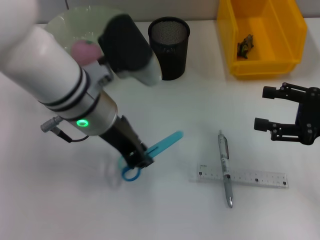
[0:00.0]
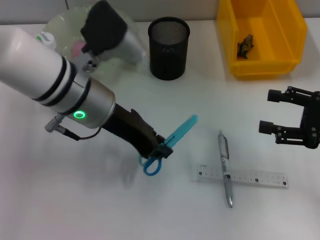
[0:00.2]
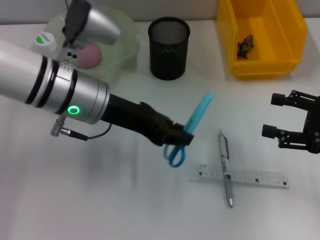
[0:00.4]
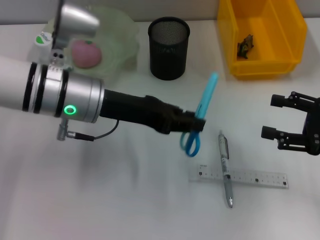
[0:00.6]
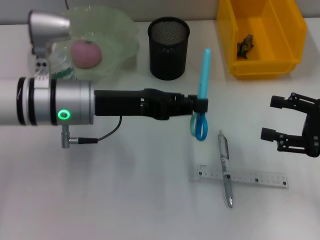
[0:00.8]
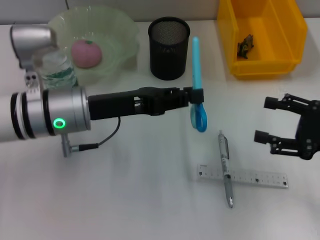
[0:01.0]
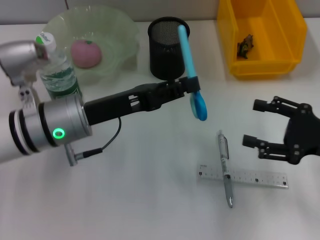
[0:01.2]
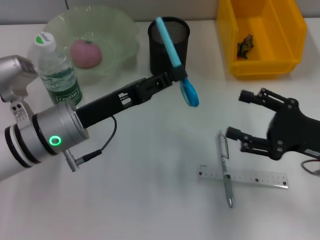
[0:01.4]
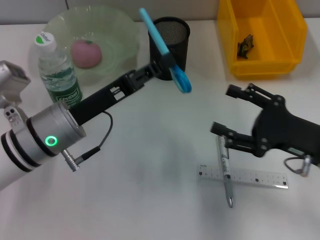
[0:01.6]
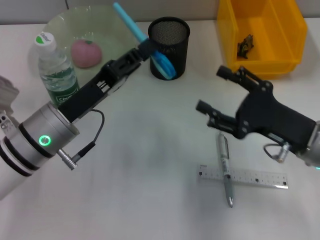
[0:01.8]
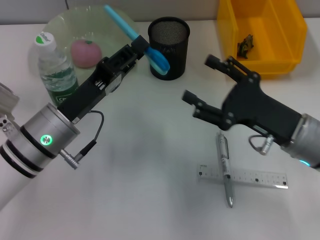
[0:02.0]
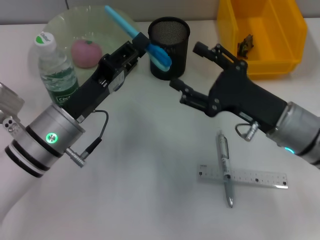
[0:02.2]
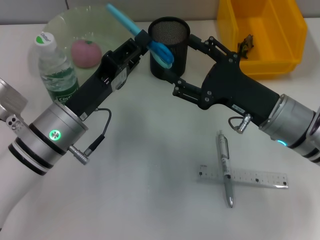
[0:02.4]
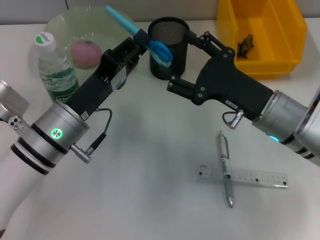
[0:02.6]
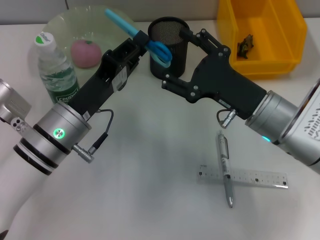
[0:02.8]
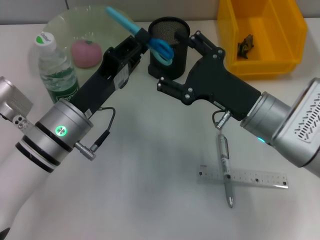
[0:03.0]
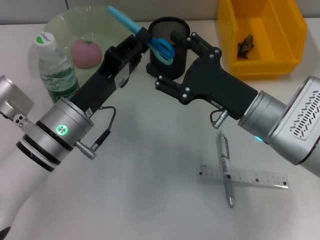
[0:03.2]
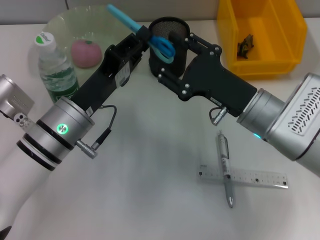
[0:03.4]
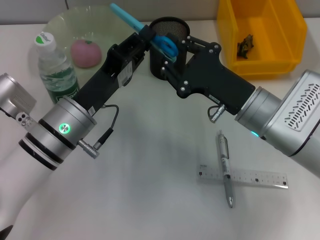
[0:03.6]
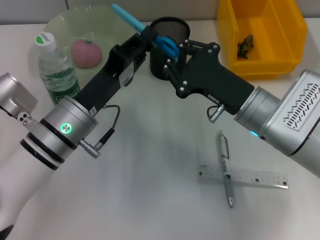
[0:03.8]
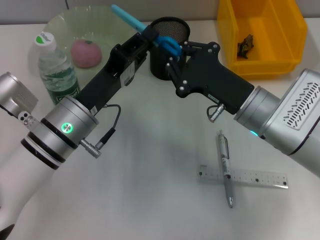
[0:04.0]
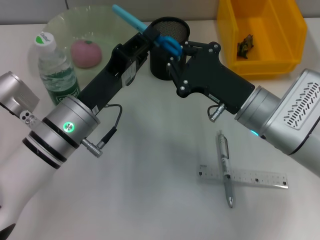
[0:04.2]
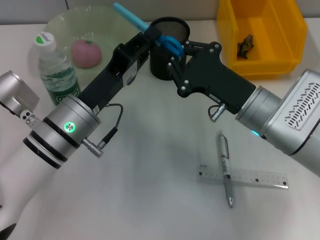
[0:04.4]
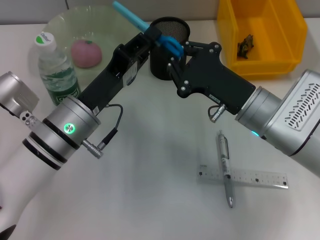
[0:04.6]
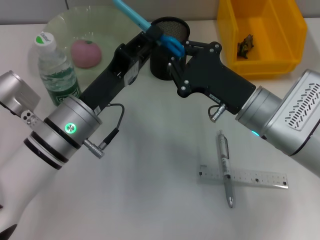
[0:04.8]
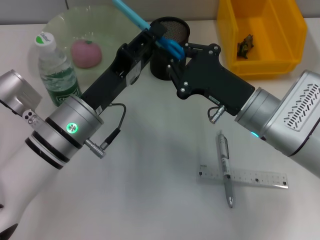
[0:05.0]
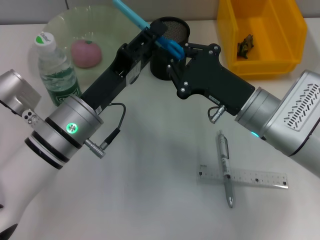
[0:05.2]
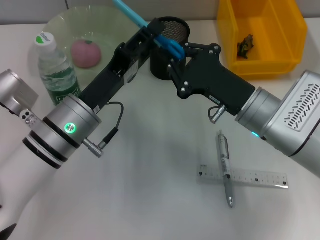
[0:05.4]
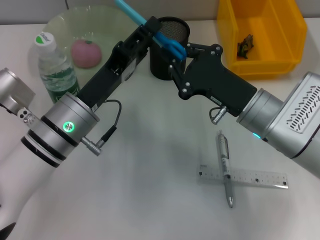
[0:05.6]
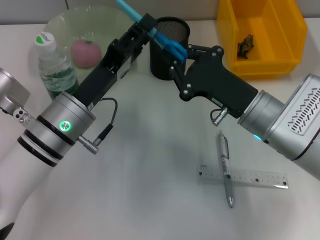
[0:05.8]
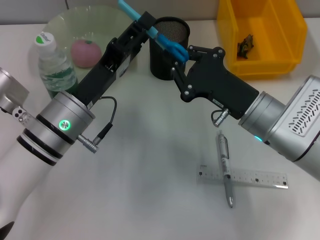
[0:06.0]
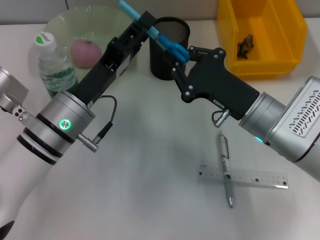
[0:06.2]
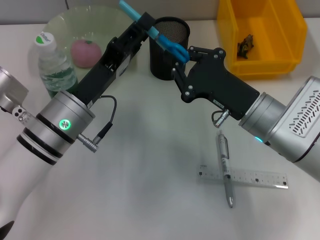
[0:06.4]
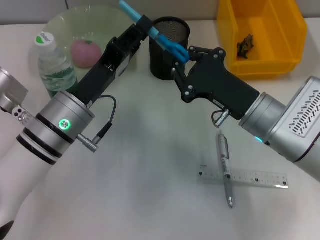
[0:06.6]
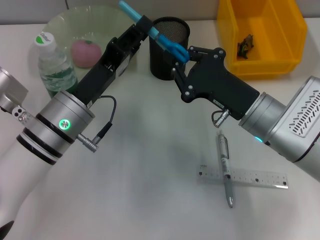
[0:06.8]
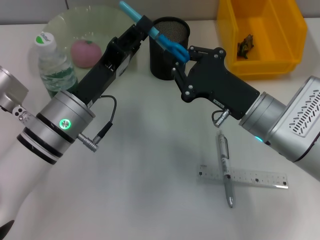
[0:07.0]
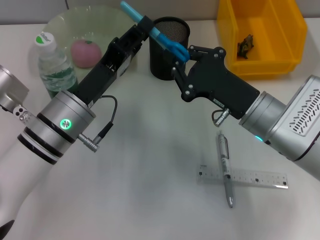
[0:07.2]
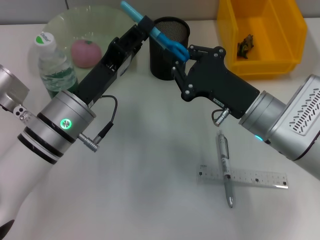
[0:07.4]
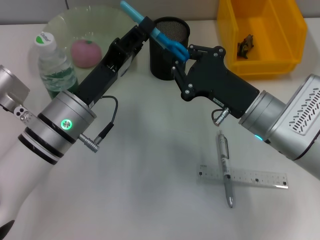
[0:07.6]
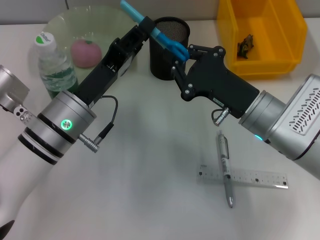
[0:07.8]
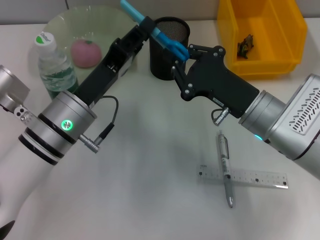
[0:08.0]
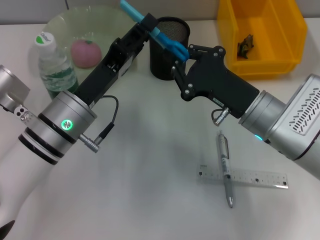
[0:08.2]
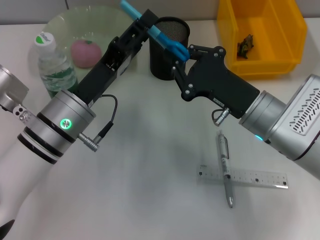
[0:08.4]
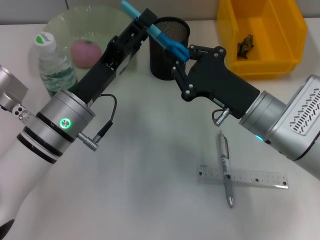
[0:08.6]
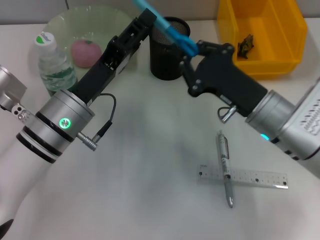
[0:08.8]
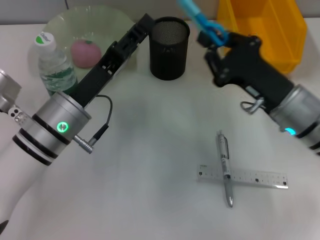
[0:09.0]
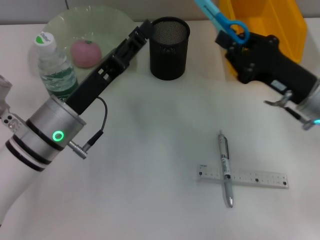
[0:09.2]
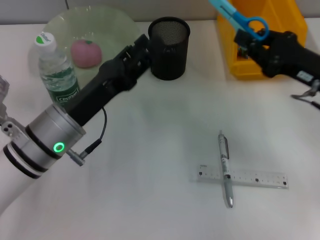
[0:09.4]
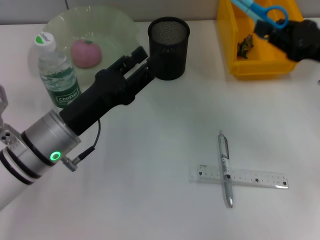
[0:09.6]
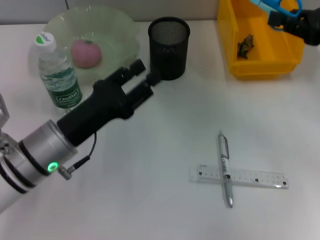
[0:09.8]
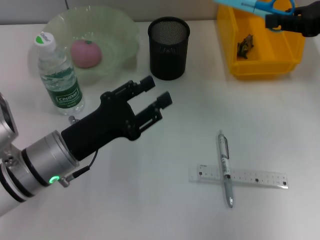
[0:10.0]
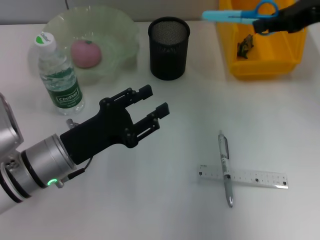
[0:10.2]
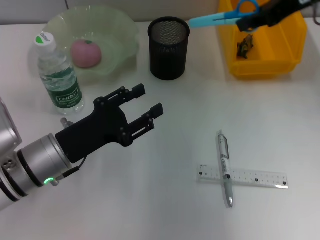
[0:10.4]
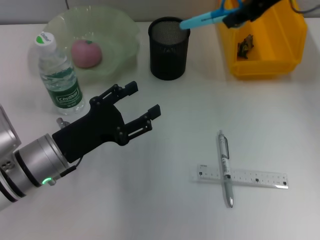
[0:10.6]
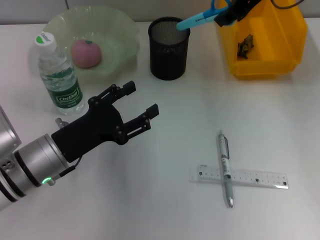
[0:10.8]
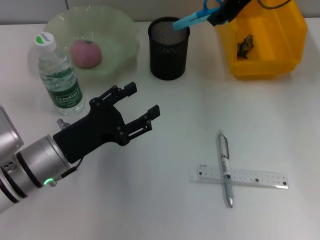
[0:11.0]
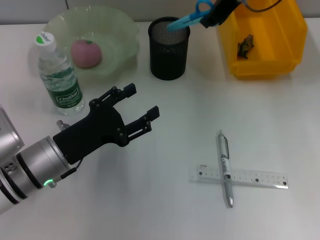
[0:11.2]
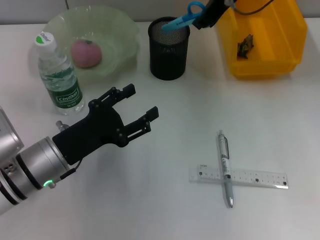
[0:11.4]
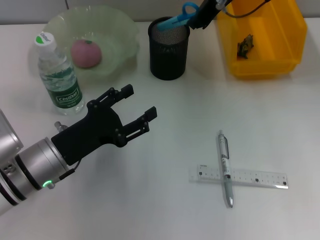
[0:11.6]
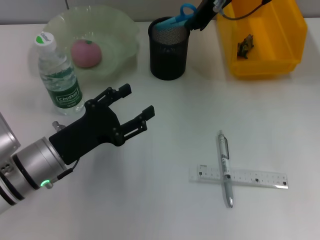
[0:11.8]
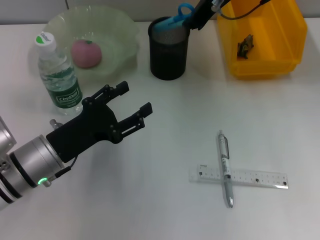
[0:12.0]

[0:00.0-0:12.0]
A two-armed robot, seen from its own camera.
Step, 0:00.0 to 0:08.8: Pass the blue scissors from the left hand to the right hand.
0:00.0 to 0:01.6: The left gripper travels downward and to the left by some 10 cm, while the right gripper heads to the left, covering roughly 5 cm.
0:01.6 to 0:03.0: The right gripper moves to the left, some 10 cm.
0:03.0 to 0:04.4: The right gripper closes.
0:04.4 to 0:06.0: The left gripper opens its fingers.
0:06.0 to 0:07.6: The left gripper closes up.
0:07.6 to 0:09.0: The left gripper opens.
0:09.0 to 0:10.4: The left gripper moves approximately 5 cm; the right gripper goes about 20 cm upward and forward.
0:10.4 to 0:12.0: The right gripper shifts roughly 15 cm to the left.

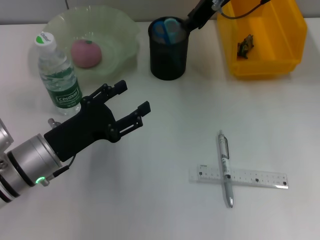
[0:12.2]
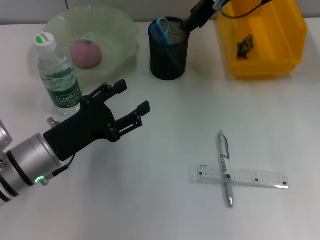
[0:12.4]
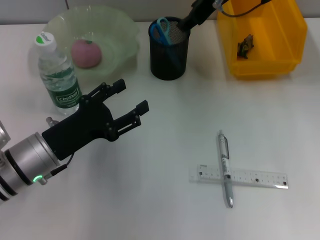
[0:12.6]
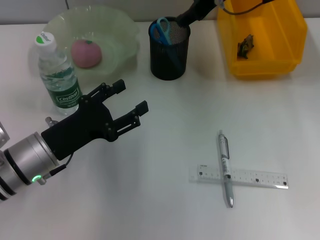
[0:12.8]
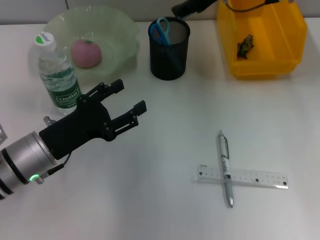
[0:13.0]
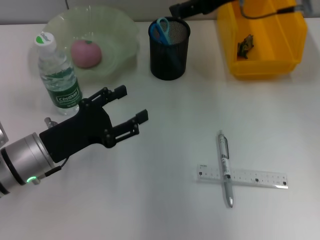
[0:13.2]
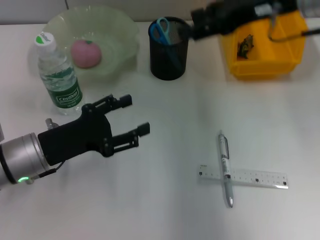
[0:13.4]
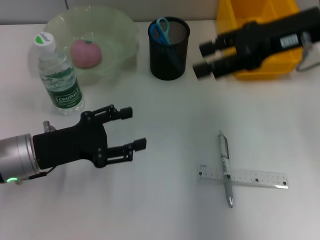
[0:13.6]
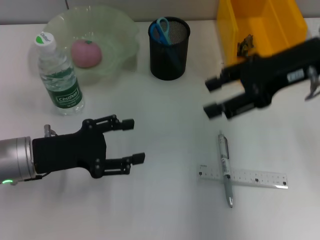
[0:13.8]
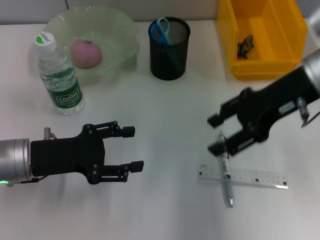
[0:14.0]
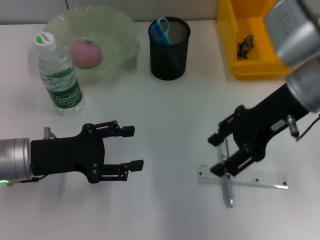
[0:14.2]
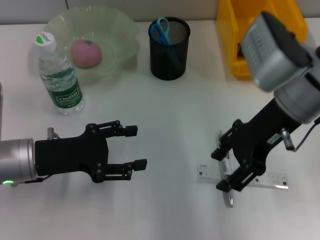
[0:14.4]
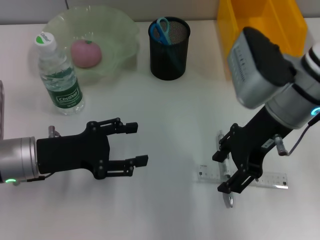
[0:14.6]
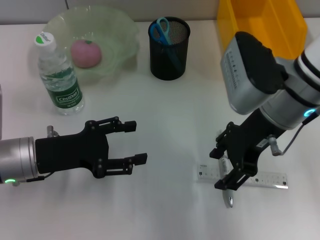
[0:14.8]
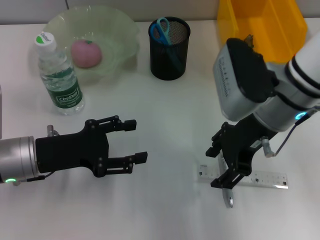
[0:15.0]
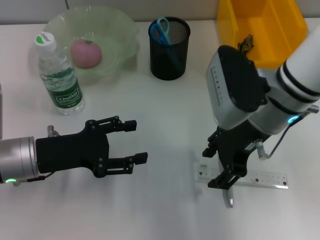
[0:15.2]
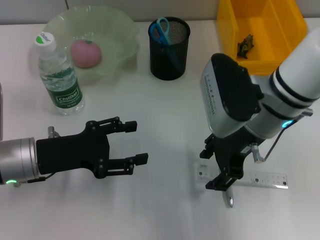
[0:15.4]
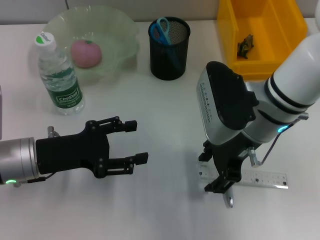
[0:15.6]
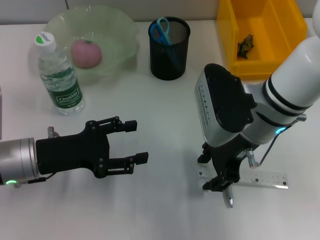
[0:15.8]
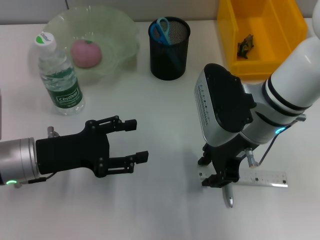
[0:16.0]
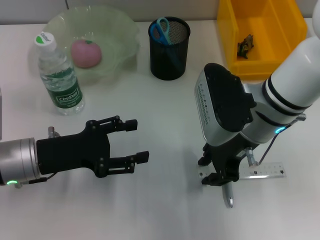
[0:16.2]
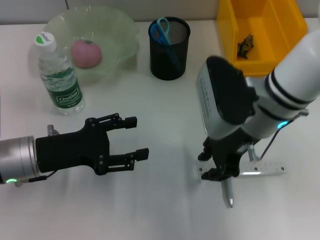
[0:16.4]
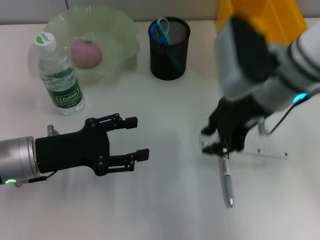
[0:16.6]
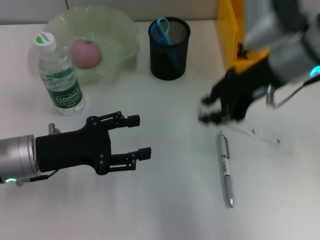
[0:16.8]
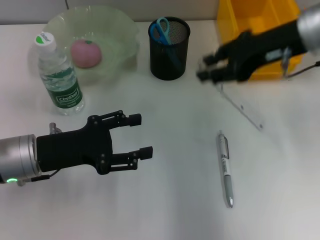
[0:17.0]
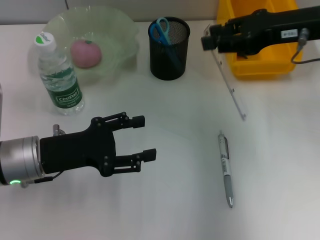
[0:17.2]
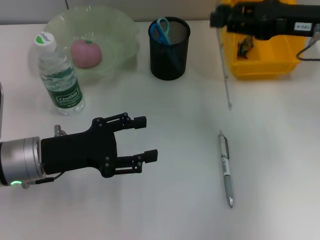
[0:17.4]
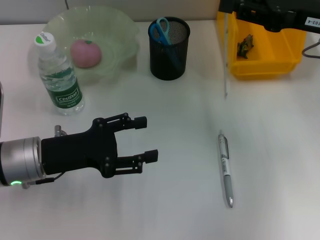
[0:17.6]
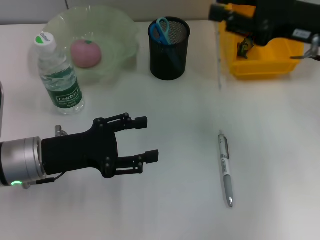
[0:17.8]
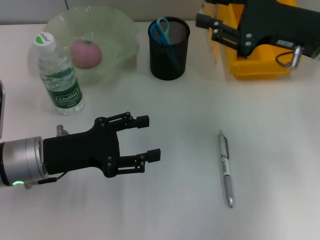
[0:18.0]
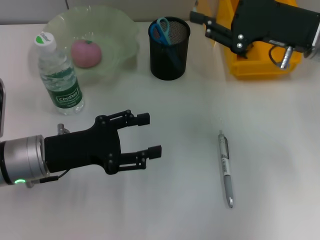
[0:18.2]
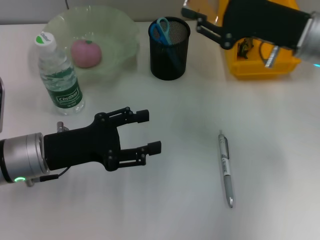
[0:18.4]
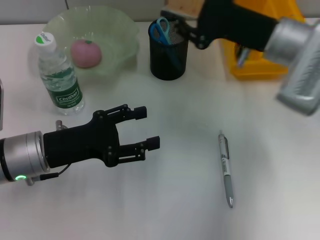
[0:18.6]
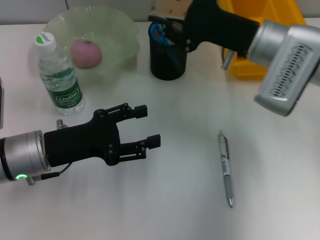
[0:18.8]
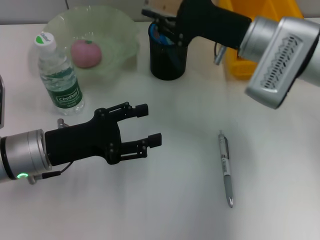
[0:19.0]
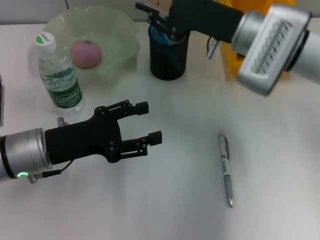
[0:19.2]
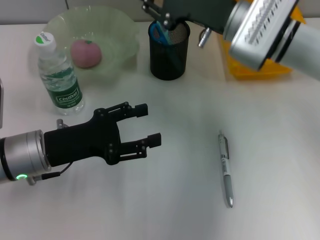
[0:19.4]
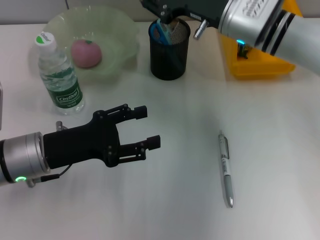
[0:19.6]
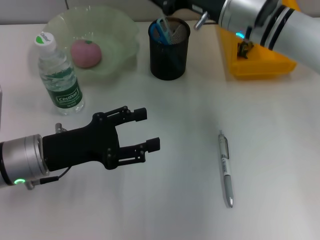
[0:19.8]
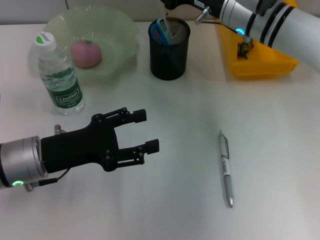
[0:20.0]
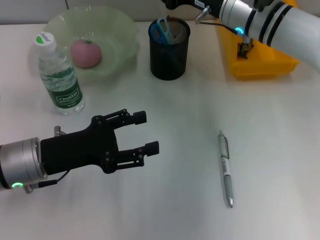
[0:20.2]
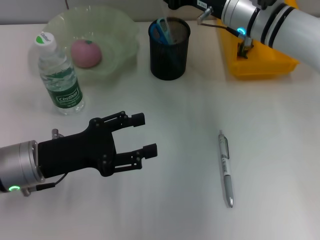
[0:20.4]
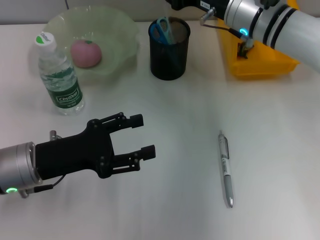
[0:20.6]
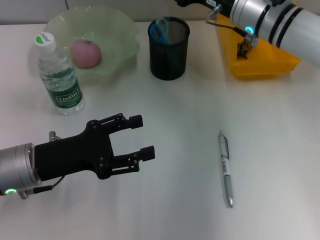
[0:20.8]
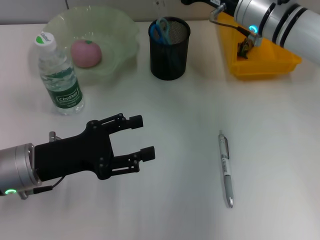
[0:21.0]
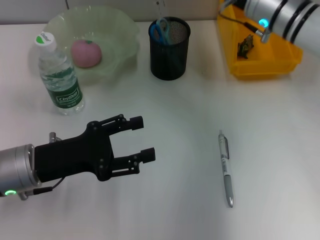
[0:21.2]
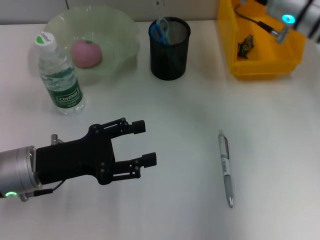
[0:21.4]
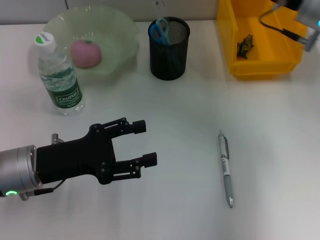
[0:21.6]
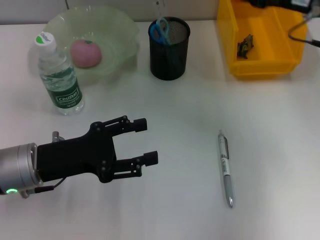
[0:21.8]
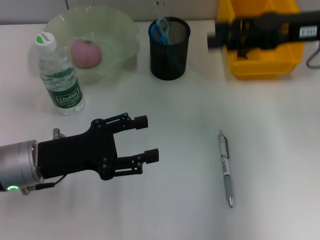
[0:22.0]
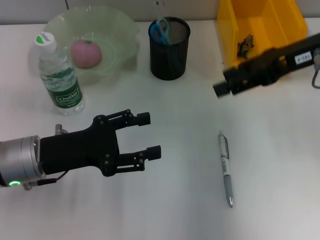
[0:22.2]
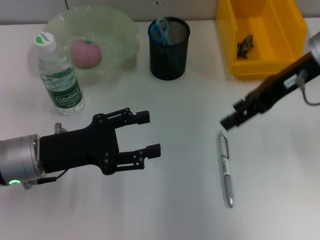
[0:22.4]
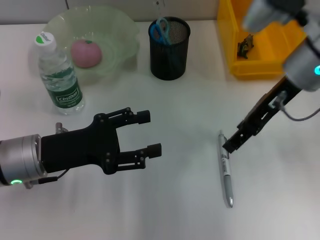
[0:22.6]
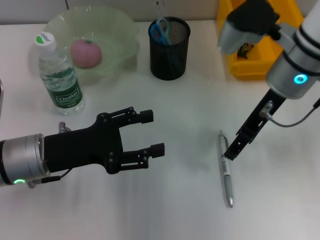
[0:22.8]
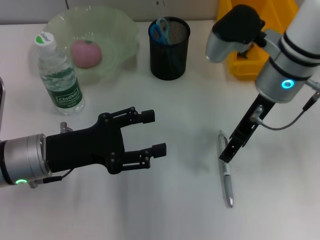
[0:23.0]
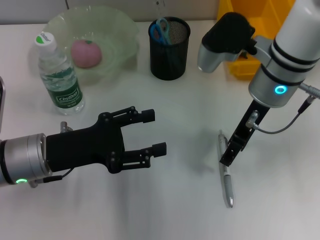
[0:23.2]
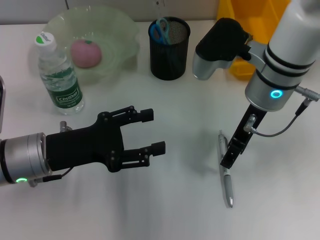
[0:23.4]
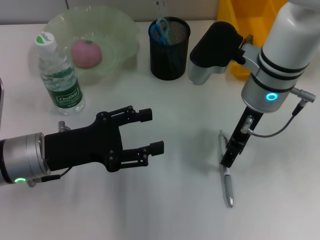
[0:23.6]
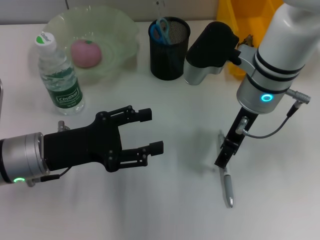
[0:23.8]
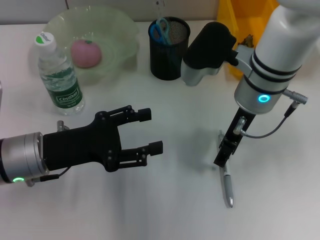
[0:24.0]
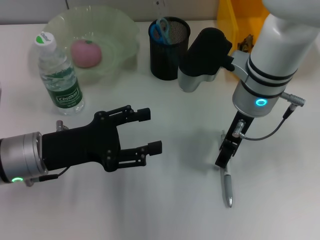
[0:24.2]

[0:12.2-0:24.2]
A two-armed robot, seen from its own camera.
Step, 0:12.4 to 0:16.0: Grab the ruler with the right hand.
Step, 0:16.2 to 0:20.8: Place the ruler into the pen holder with the right hand.
0:12.2 to 0:13.8: The right gripper goes roughly 15 cm backward and to the right, and opens up.
0:13.8 to 0:15.2: The right gripper shifts approximately 10 cm to the left and downward.
0:15.2 to 0:16.6: The right gripper closes its fingers.
0:16.6 to 0:18.2: The right gripper moves to the right, some 10 cm.
0:18.2 to 0:19.8: The right gripper shifts about 10 cm to the left and forward.
0:19.8 to 0:21.2: The right gripper opens.
0:21.2 to 0:22.6: The right gripper goes approximately 5 cm backward, and moves about 10 cm to the right and comes back.
0:22.6 to 0:24.2: The right gripper goes about 5 cm to the left.
